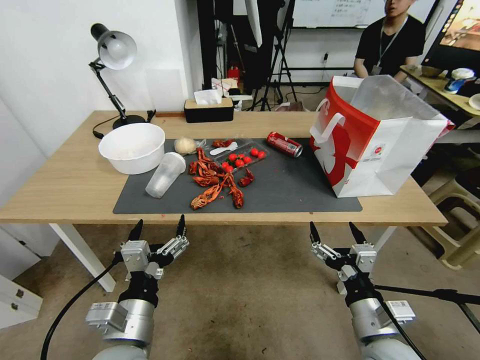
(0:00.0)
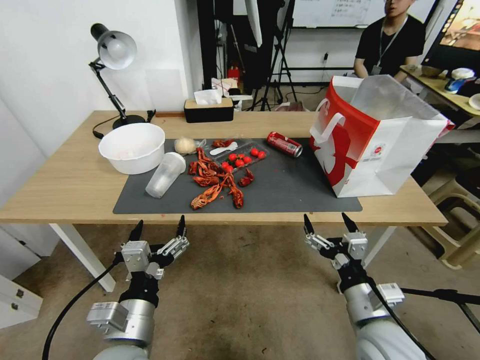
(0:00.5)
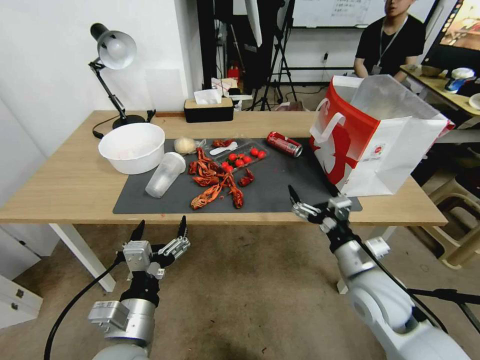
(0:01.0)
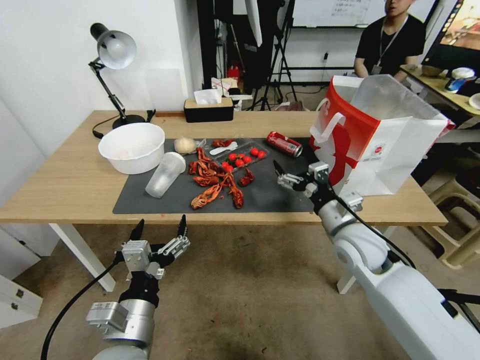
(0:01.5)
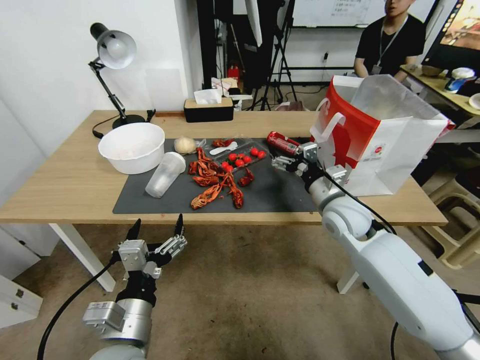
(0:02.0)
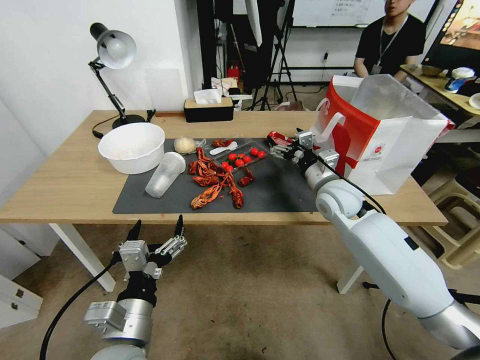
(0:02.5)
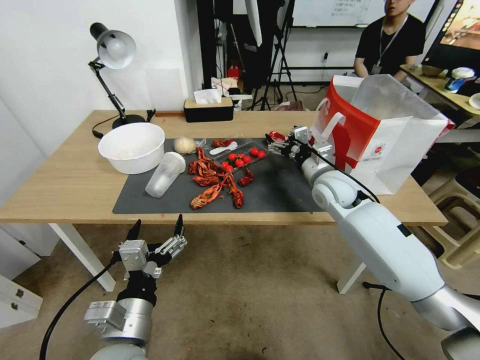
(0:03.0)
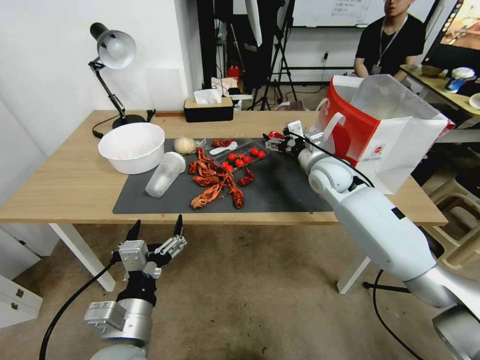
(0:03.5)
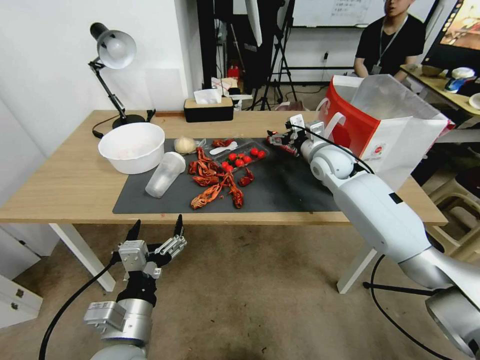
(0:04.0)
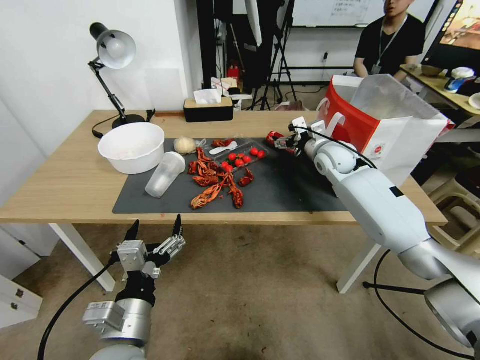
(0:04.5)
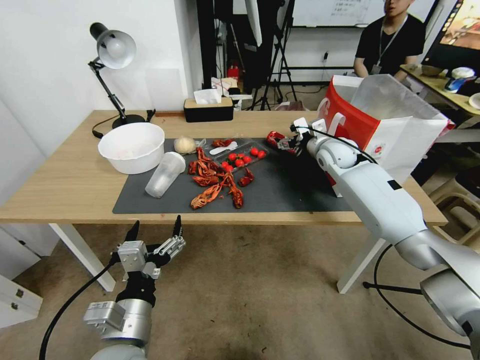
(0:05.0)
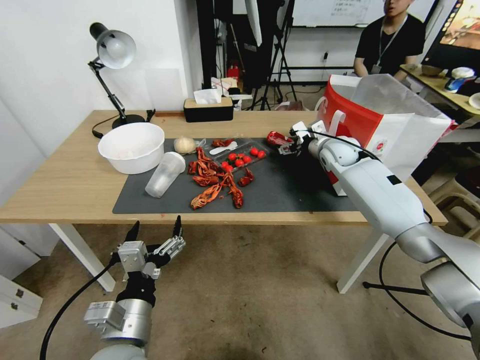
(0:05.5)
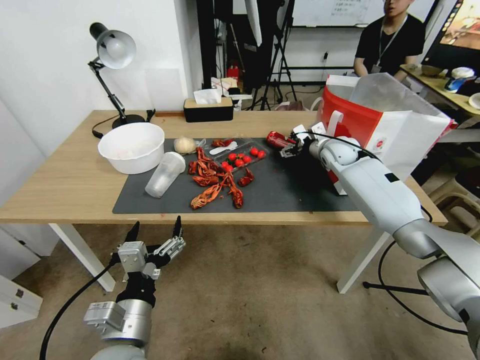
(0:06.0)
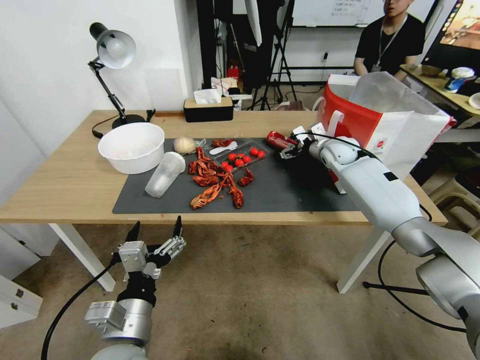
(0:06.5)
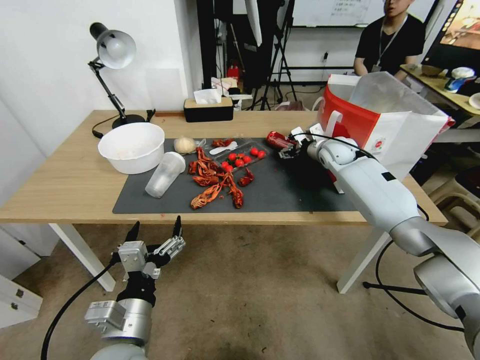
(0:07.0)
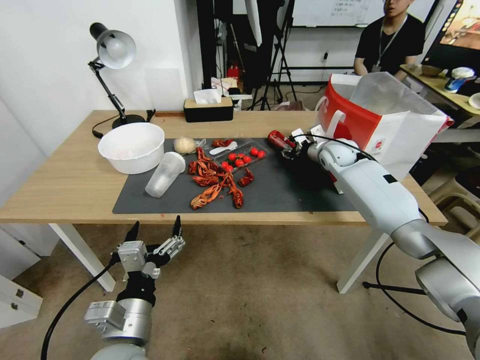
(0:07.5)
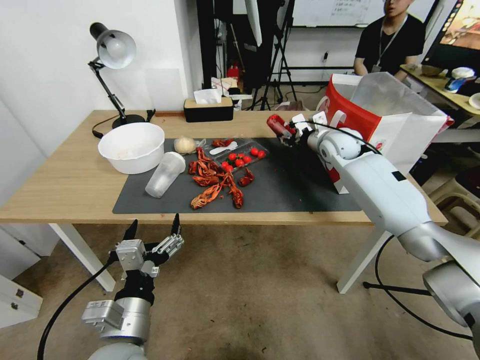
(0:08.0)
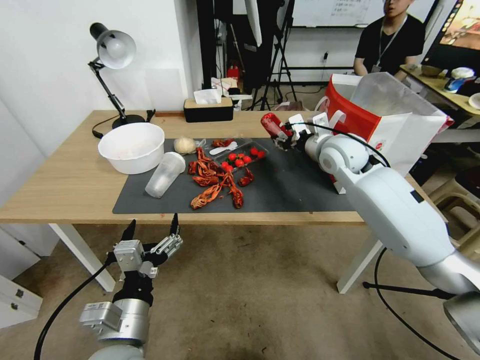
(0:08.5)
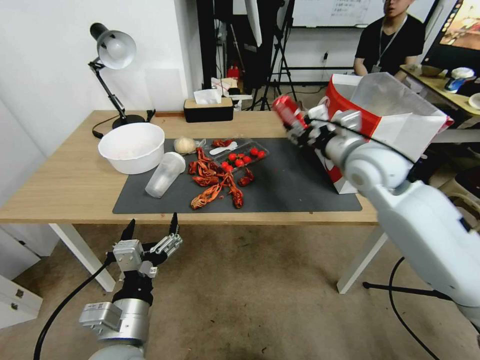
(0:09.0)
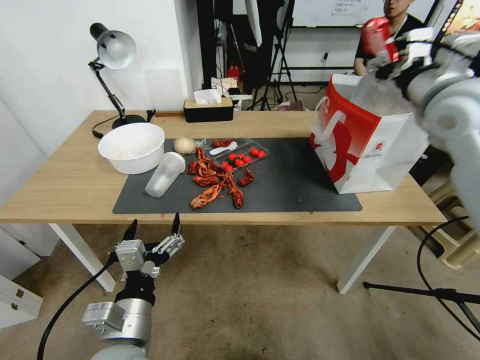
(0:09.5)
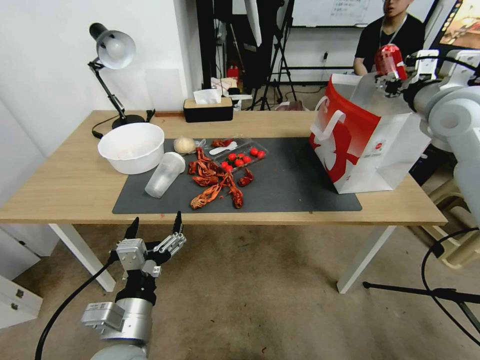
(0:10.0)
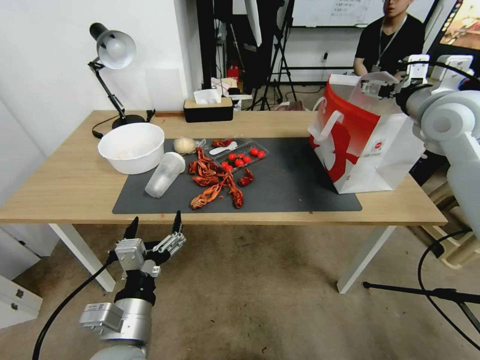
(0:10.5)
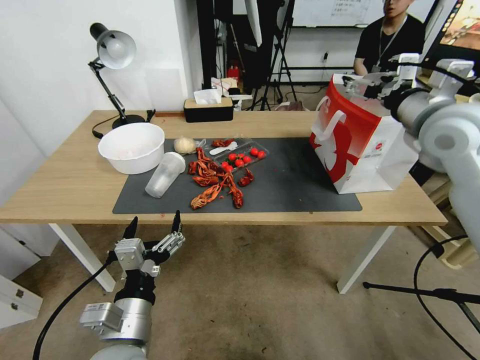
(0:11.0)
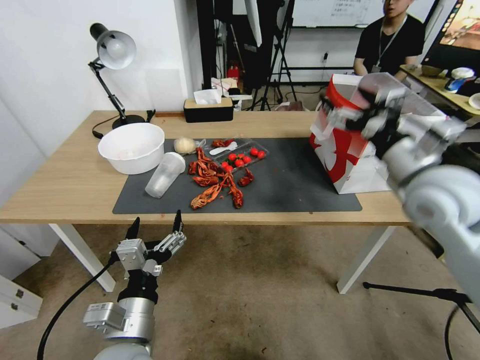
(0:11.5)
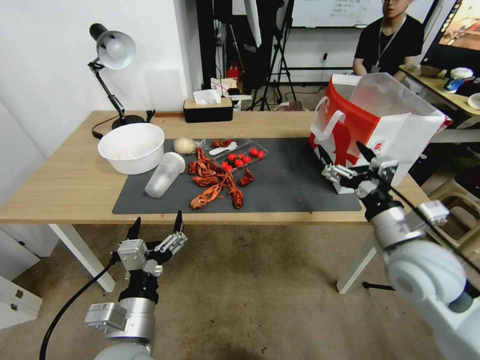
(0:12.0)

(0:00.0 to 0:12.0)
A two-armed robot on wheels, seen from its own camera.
0:00.0 - 0:02.0: The right gripper shifts roughly 25 cm forward.
0:02.0 - 0:04.0: The right gripper goes roughly 15 cm forward.
0:04.0 - 0:06.0: The right gripper heads forward, covering approximately 5 cm.
0:06.0 - 0:08.0: The right gripper closes.
0:08.0 - 0:10.0: The right gripper travels upward, backward and to the right by approximately 25 cm.
0:10.0 - 0:12.0: The right gripper shifts some 25 cm backward, downward and to the left, and opens its fingers.

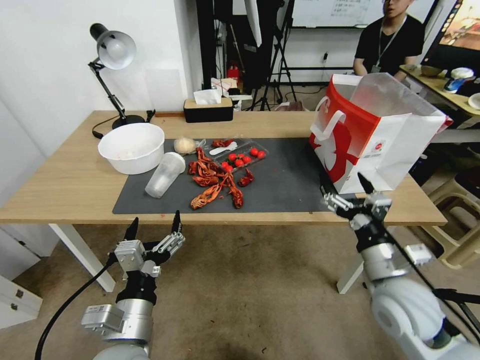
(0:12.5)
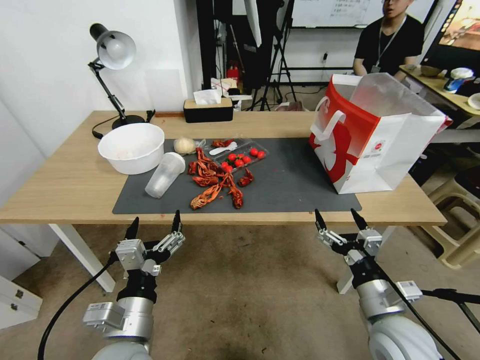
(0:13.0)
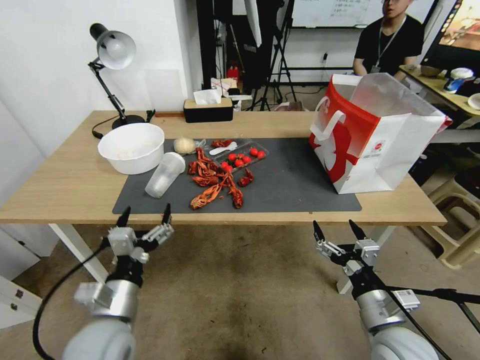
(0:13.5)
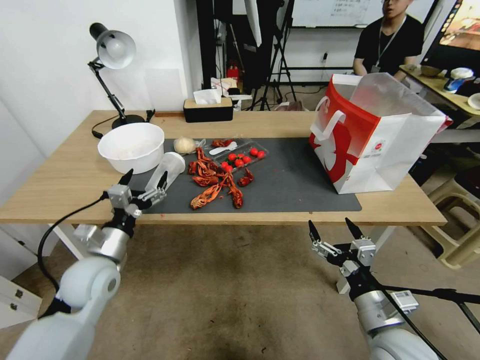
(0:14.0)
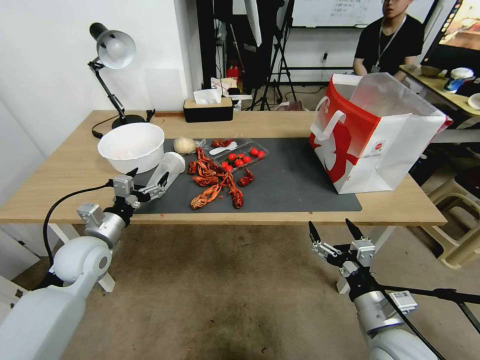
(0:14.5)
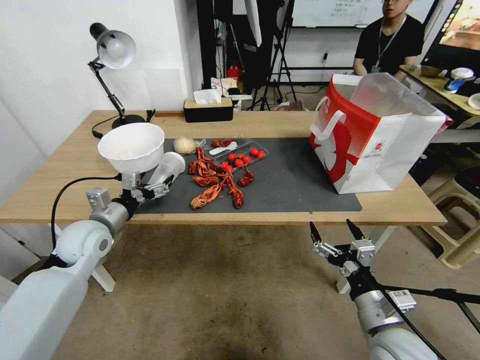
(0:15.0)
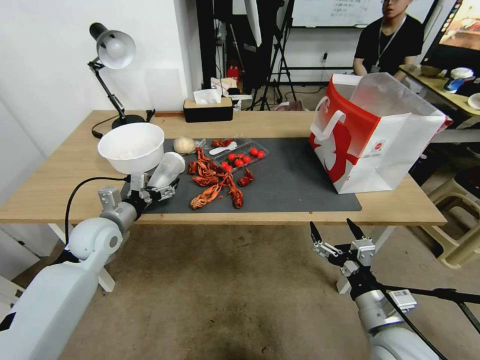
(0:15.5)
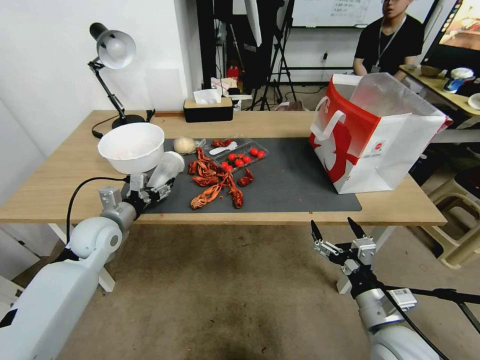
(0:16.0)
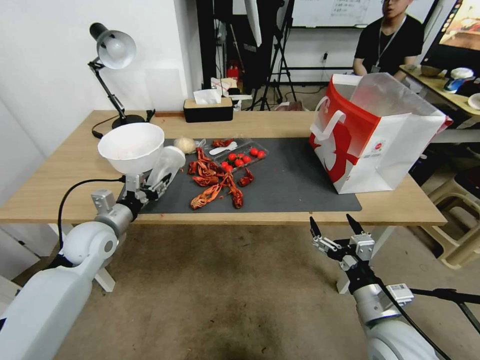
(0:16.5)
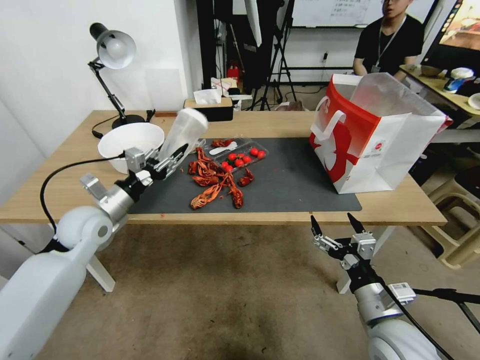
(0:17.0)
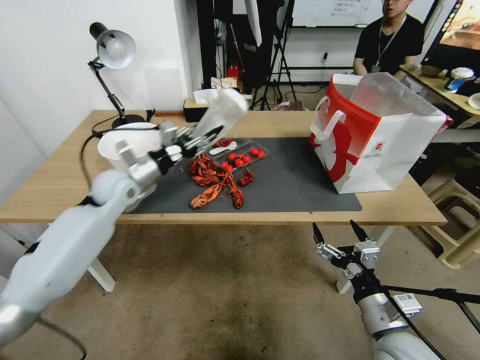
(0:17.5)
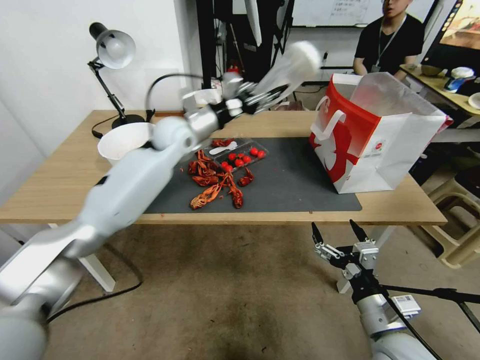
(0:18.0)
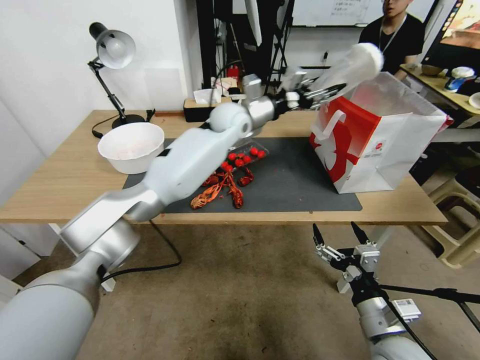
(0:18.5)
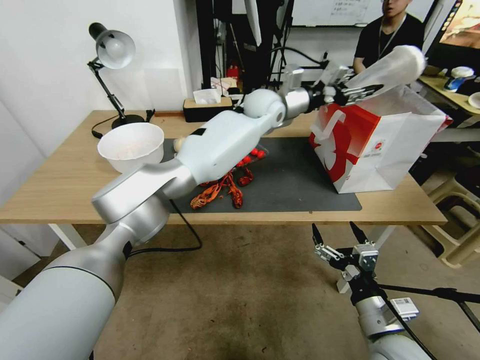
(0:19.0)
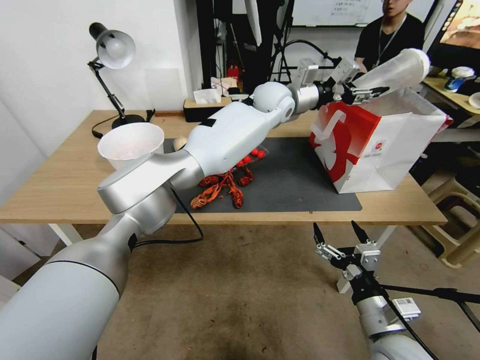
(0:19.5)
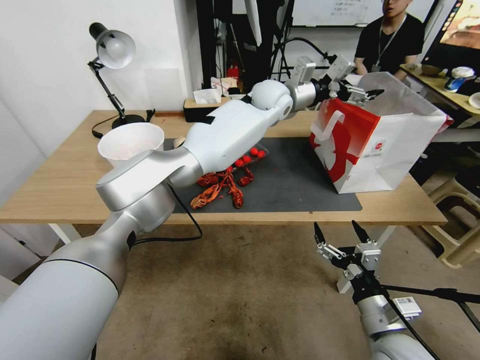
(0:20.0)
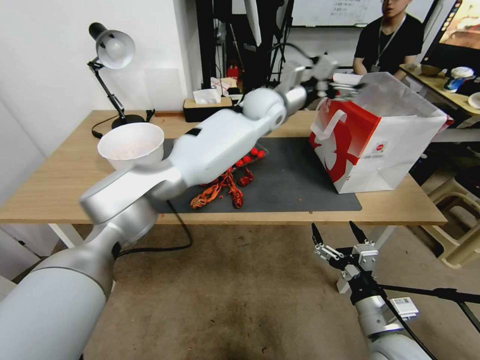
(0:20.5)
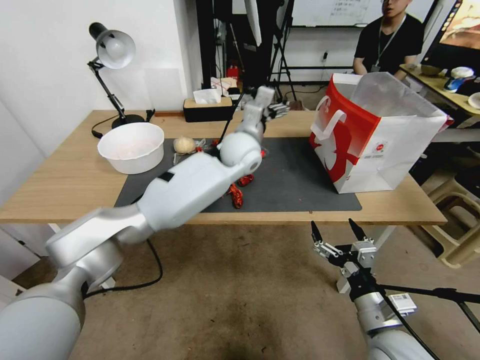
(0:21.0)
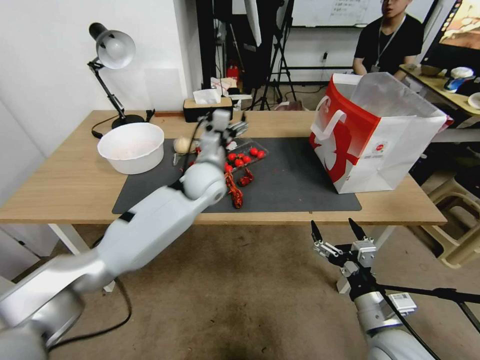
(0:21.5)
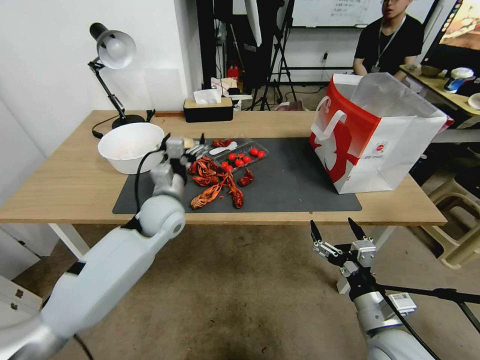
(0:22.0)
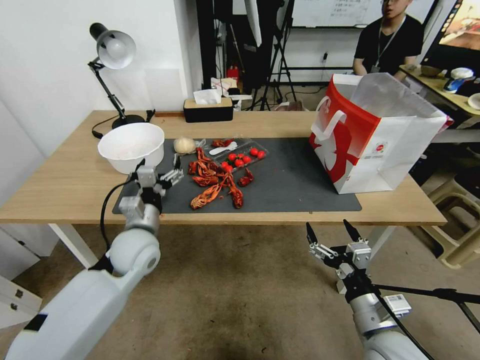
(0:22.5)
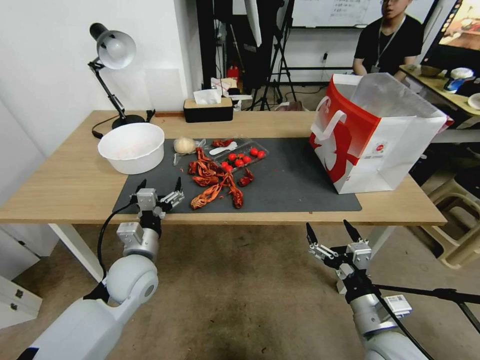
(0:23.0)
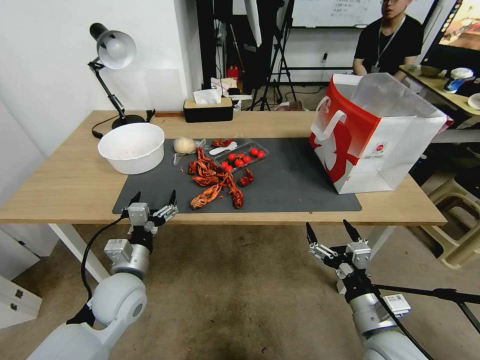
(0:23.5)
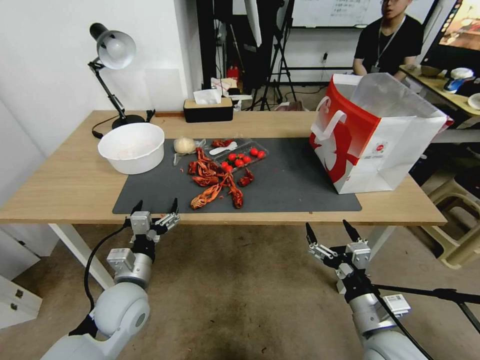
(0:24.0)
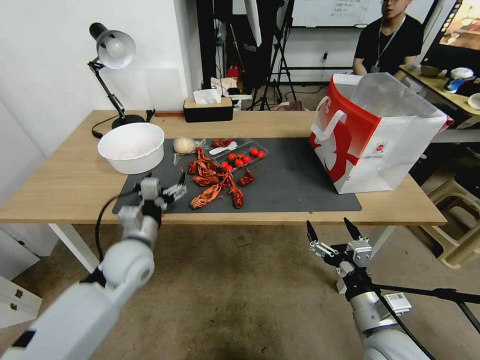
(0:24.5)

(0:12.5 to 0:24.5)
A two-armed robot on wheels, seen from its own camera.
0:12.5 - 0:14.5: The right gripper is displaced backward and downward by roughly 10 cm. The left gripper heads forward and to the left, covering roughly 25 cm.
0:14.5 - 0:16.5: The left gripper closes its fingers.
0:16.5 - 0:18.5: The left gripper is displaced to the right, forward and upward by roughly 40 cm.
0:18.5 - 0:20.5: The left gripper moves to the right, approximately 5 cm, and opens up.
0:20.5 - 0:22.5: The left gripper shifts roughly 40 cm to the left, backward and downward.
0:22.5 - 0:24.5: The left gripper reaches roughly 10 cm backward, then returns.

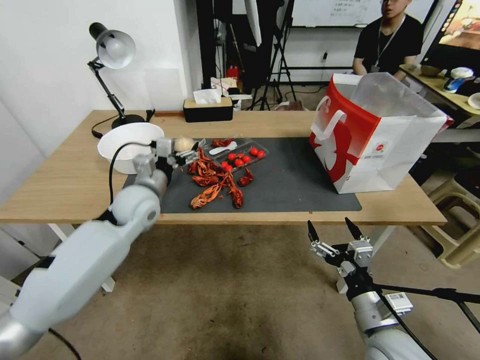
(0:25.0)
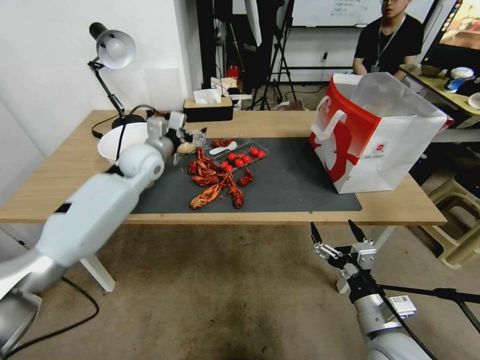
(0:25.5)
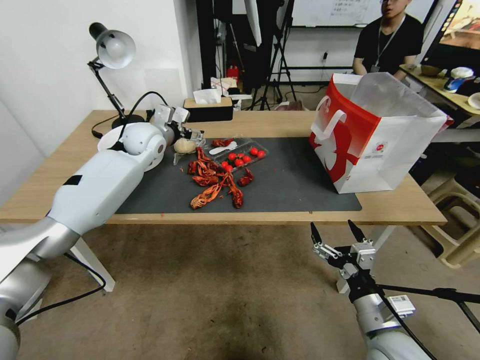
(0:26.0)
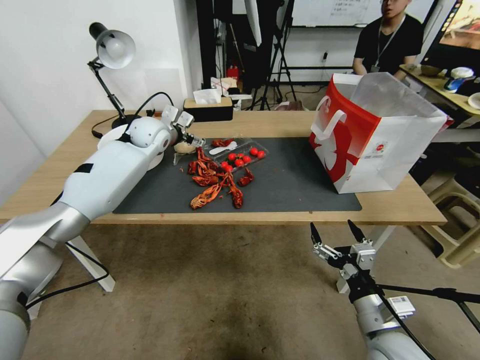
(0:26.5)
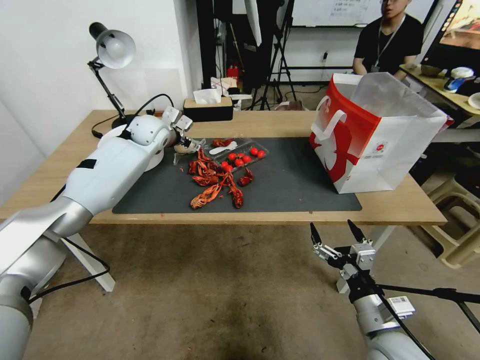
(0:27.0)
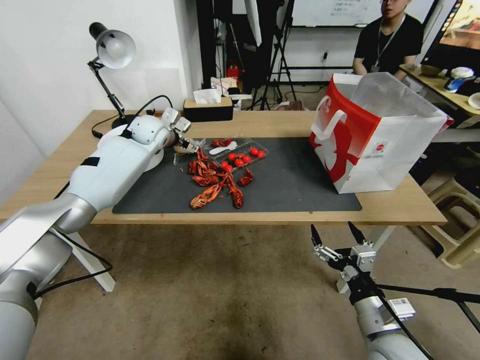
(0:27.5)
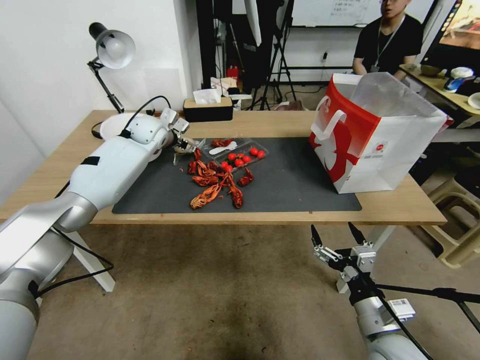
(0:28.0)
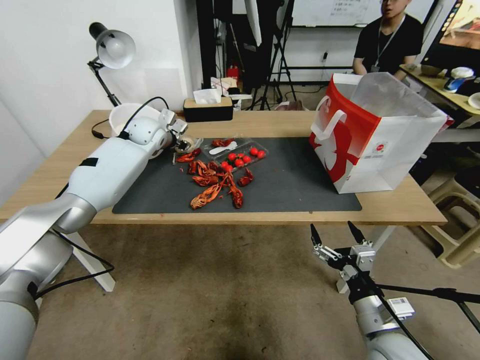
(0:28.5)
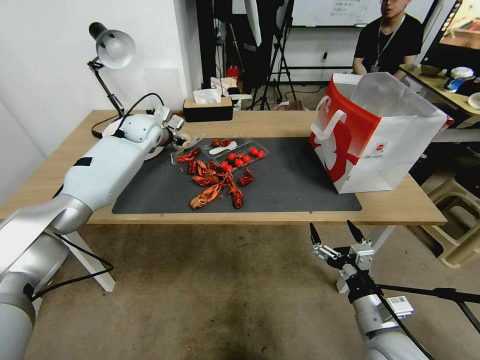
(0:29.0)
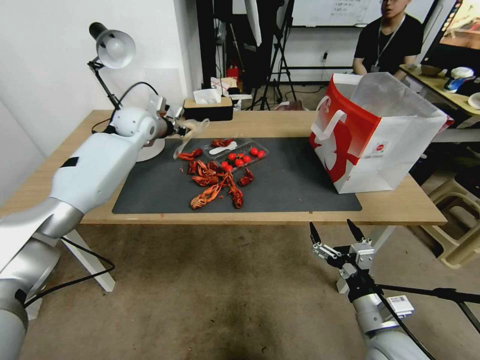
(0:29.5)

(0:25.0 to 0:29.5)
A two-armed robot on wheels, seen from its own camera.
0:25.0 - 0:27.0: The left gripper goes about 20 cm forward.
0:27.0 - 0:29.5: The left gripper closes up.
